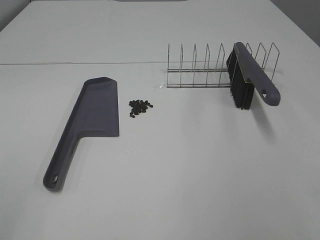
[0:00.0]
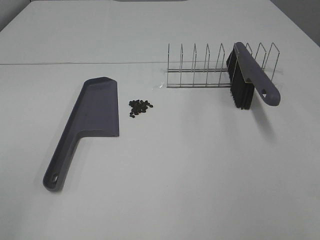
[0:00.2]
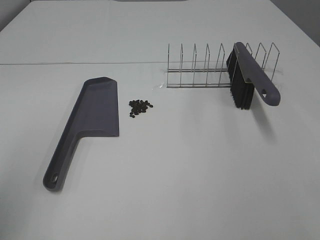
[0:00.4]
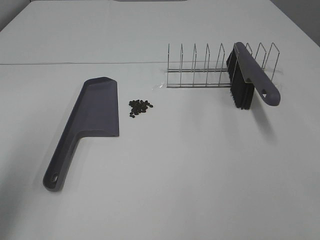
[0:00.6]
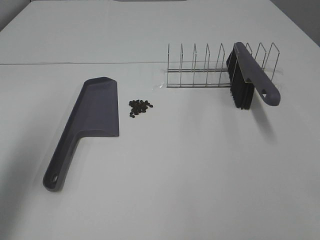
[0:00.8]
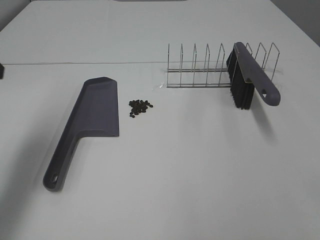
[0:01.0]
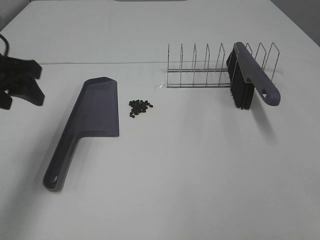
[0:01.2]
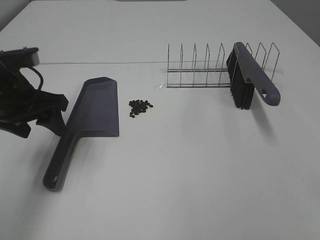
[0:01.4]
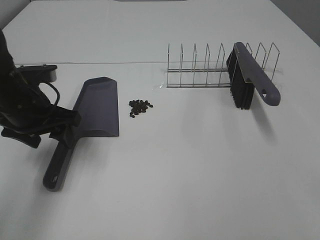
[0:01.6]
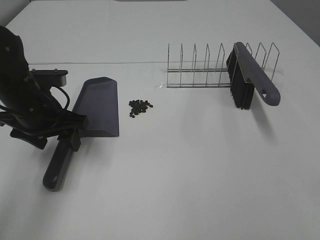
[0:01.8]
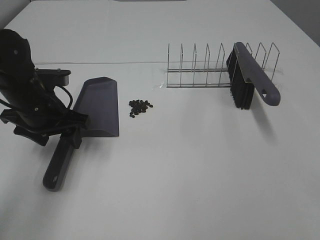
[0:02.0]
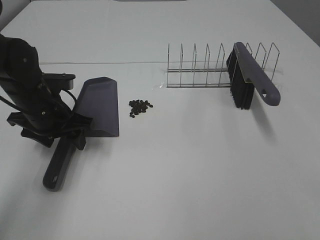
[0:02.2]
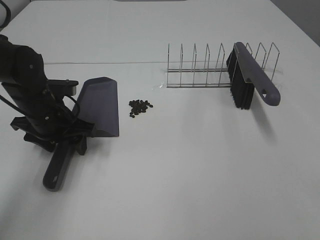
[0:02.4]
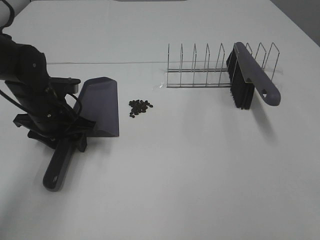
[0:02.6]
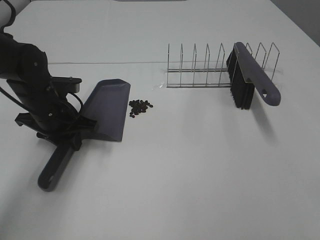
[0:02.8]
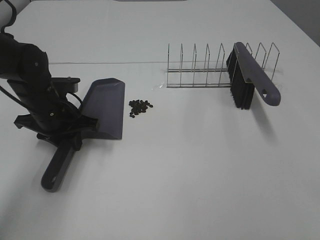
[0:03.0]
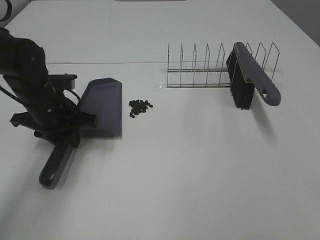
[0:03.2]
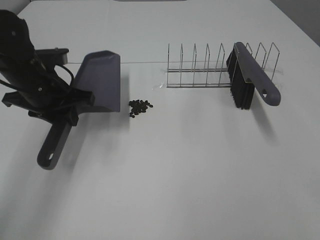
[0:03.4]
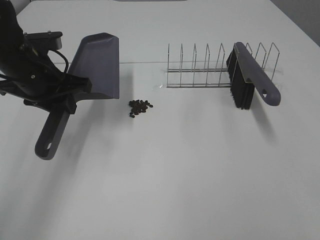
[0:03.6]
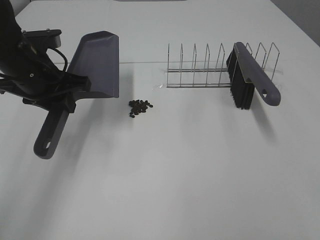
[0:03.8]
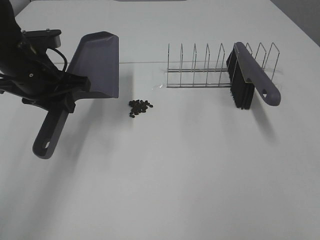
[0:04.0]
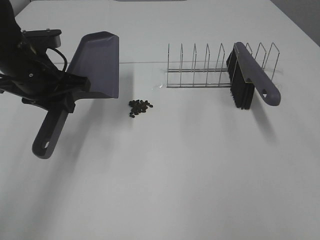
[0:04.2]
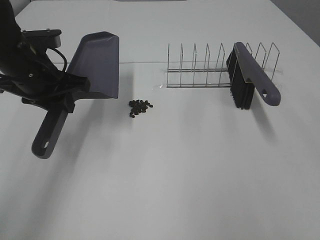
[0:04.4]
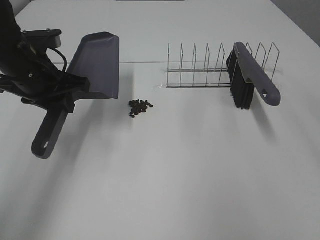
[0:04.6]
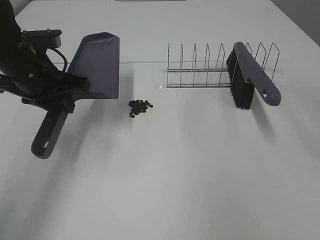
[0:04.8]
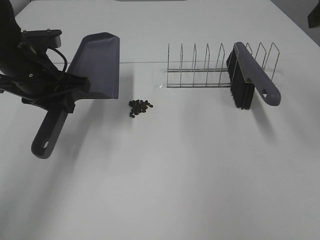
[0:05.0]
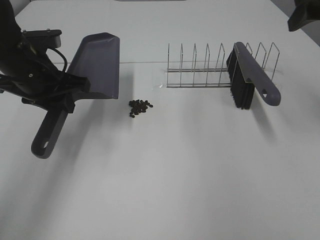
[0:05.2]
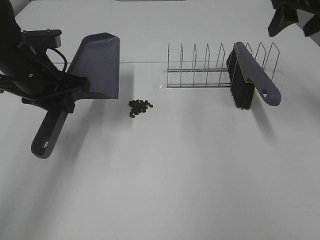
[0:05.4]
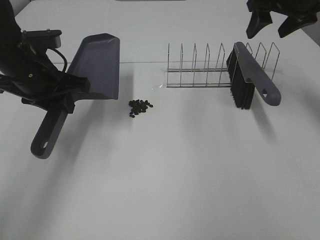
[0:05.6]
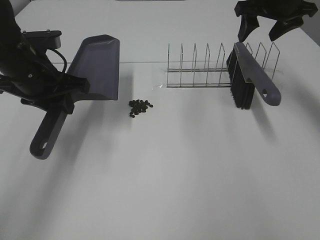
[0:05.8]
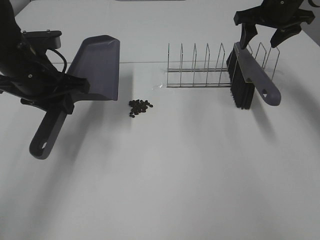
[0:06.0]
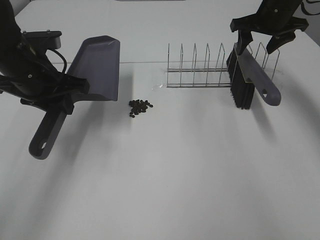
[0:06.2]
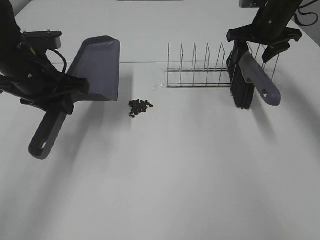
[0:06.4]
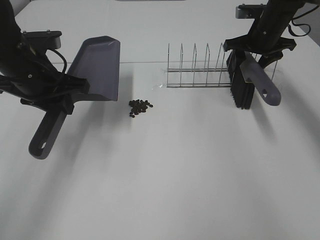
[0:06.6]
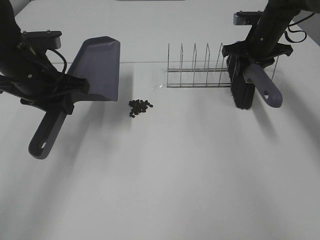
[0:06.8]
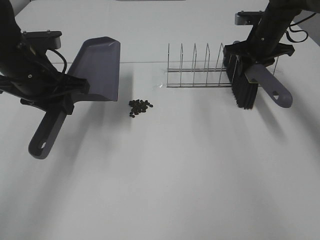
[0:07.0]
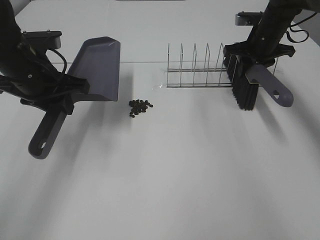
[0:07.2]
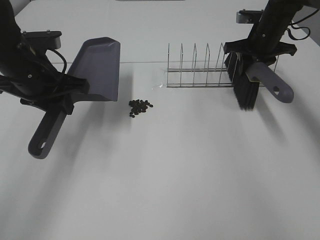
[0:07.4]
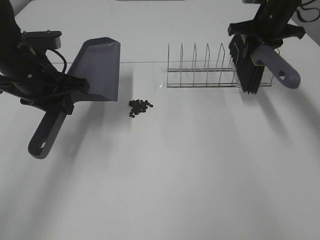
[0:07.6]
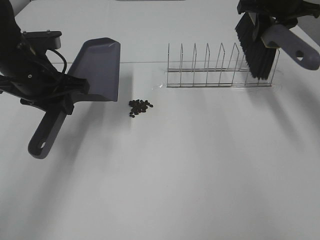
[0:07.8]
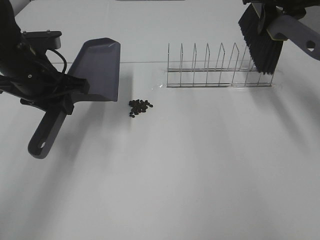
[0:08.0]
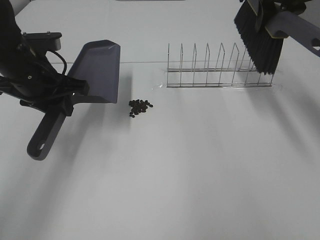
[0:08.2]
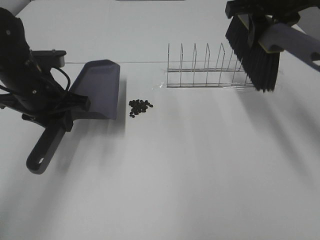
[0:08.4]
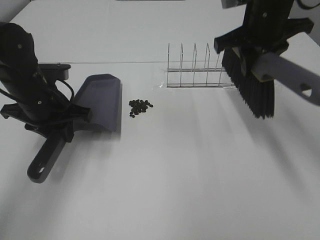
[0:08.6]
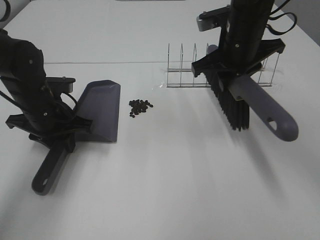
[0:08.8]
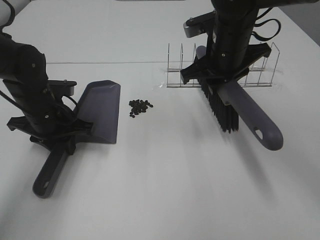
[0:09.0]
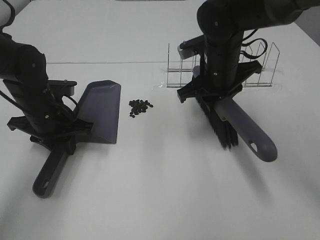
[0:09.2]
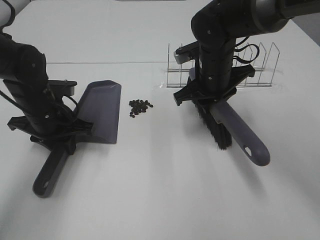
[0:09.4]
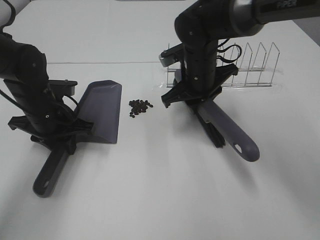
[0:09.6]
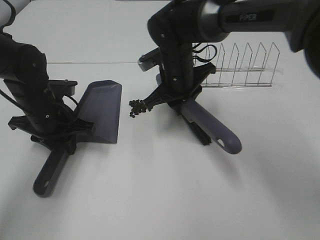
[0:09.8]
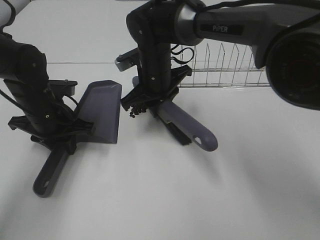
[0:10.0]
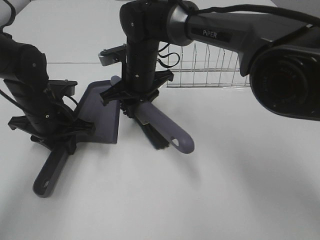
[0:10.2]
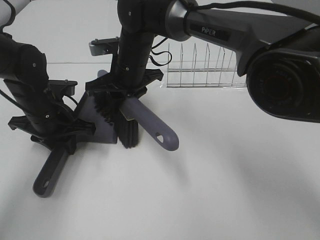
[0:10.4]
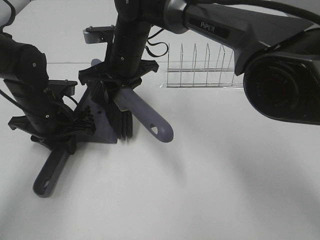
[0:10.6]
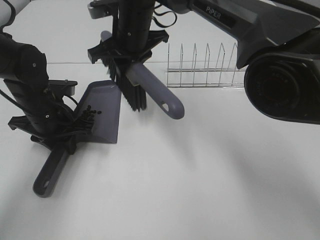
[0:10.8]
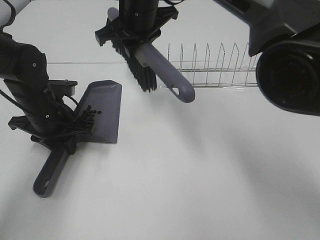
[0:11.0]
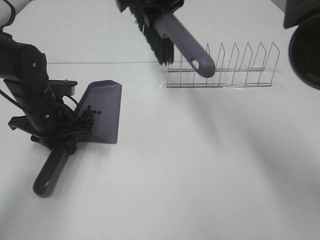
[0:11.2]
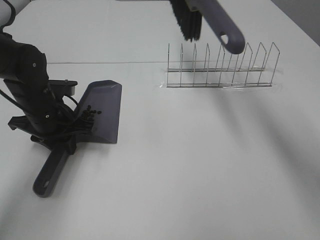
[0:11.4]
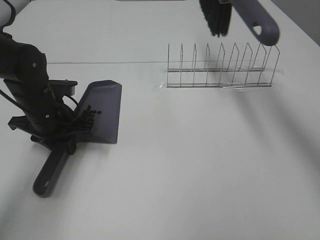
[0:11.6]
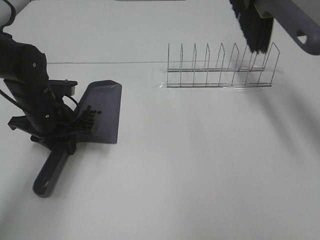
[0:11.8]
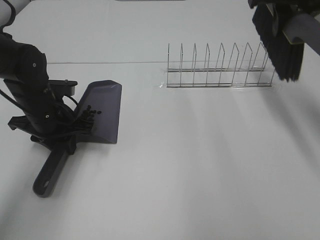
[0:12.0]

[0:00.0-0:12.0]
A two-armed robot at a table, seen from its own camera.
Task of the whole recording: Sweep Coffee Bean.
Step, 0:00.0 to 0:02.8: Left hand: grab the dustpan.
Step, 0:03.8 to 0:06.8: Right hand:grab the broom.
Step, 0:07.0 to 0:10.8: Right hand:sweep the coffee beans into the dustpan.
0:00.0 to 0:01.6: The left gripper heads forward and downward, covering roughly 35 cm, and opens its fingers.
0:01.6 to 0:03.0: The left gripper goes approximately 5 cm downward, and closes its fingers.
0:03.0 to 0:04.4: The left gripper is displaced upward by some 10 cm; the right gripper travels forward and upward by roughly 10 cm.
0:04.4 to 0:06.0: The right gripper is displaced forward by some 40 cm.
0:06.0 to 0:07.6: The right gripper travels downward and back again, roughly 10 cm each way, and closes up.
0:07.6 to 0:09.0: The right gripper is displaced backward and to the left by about 20 cm. Meanwhile the left gripper goes roughly 10 cm downward.
0:09.0 to 0:10.4: The right gripper heads to the left, covering some 15 cm.
0:10.4 to 0:12.0: The right gripper goes roughly 30 cm to the right and upward.

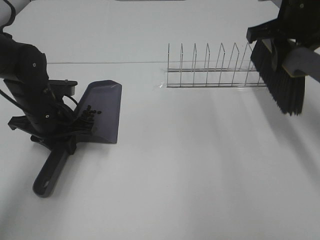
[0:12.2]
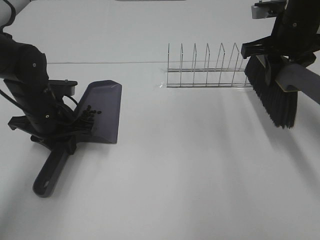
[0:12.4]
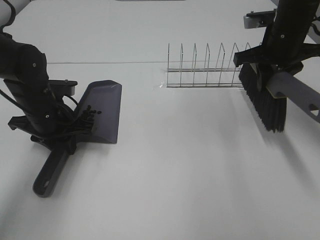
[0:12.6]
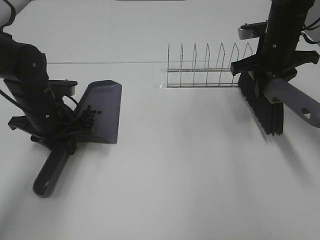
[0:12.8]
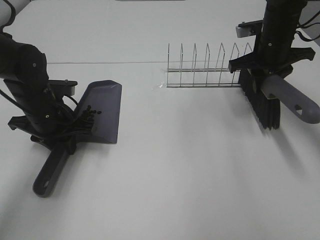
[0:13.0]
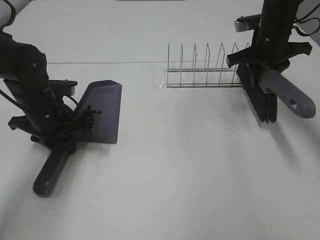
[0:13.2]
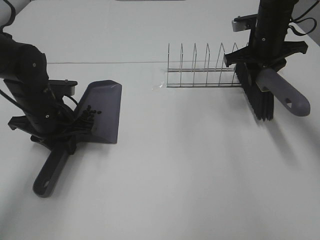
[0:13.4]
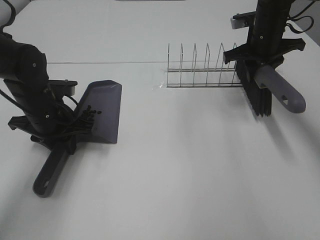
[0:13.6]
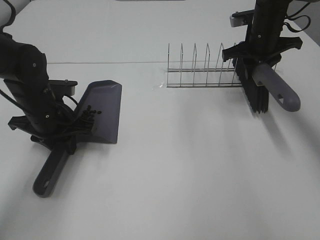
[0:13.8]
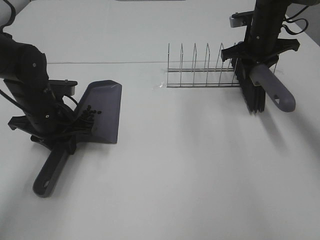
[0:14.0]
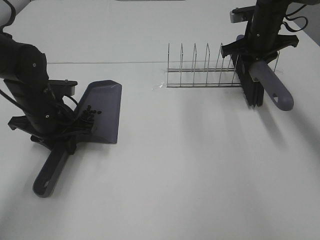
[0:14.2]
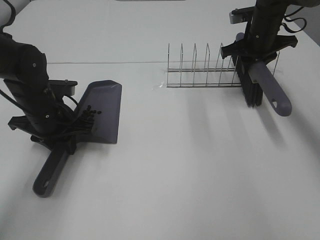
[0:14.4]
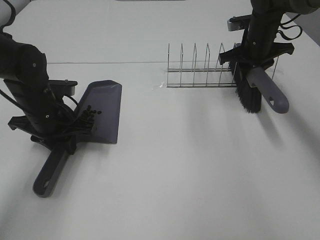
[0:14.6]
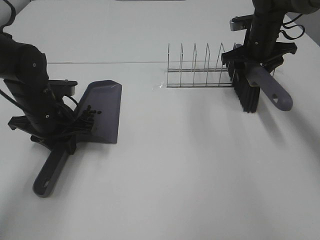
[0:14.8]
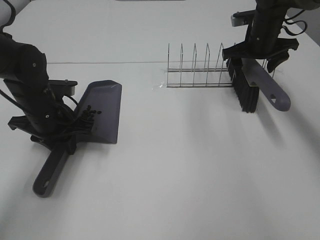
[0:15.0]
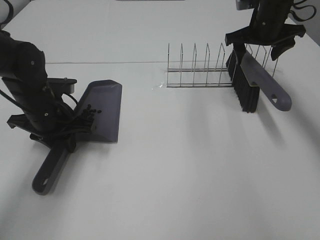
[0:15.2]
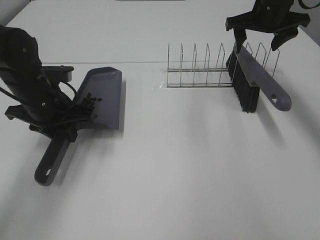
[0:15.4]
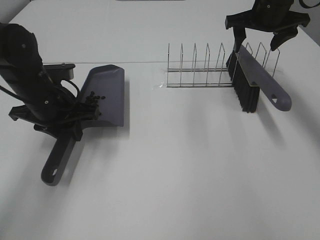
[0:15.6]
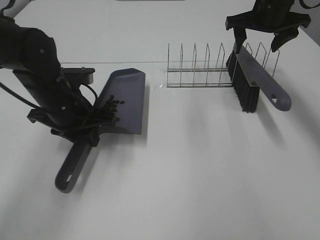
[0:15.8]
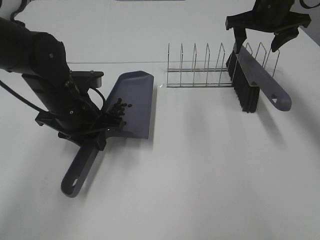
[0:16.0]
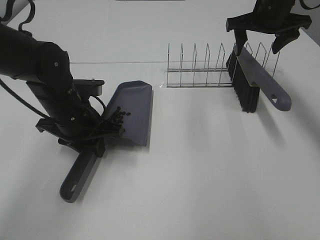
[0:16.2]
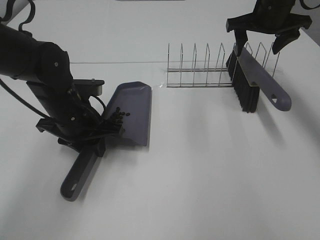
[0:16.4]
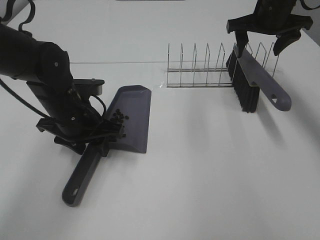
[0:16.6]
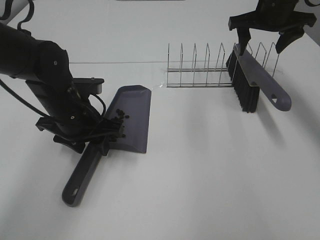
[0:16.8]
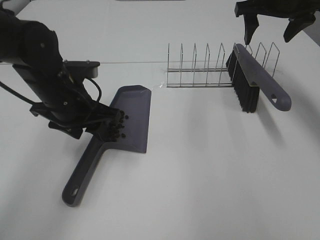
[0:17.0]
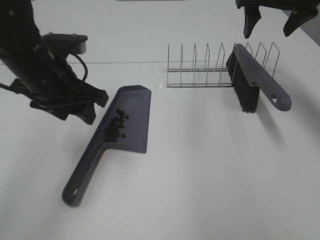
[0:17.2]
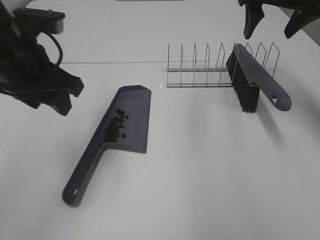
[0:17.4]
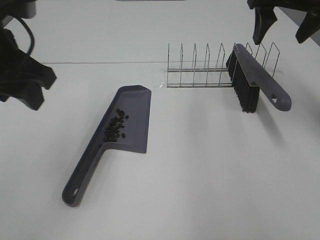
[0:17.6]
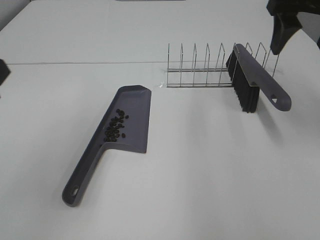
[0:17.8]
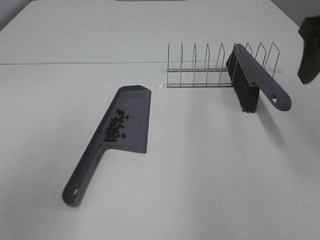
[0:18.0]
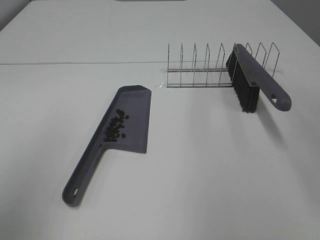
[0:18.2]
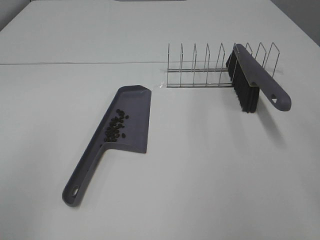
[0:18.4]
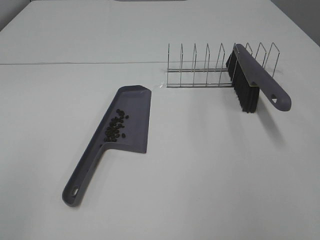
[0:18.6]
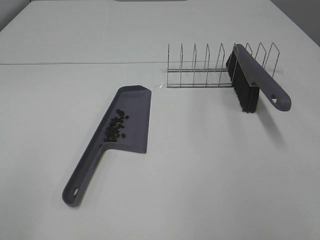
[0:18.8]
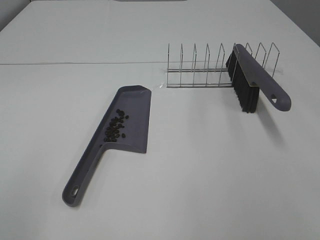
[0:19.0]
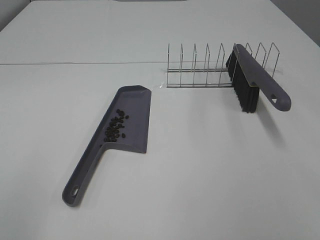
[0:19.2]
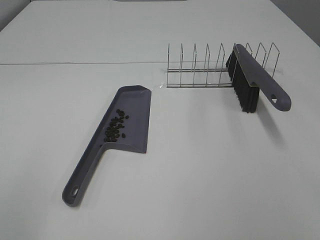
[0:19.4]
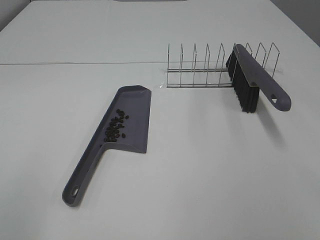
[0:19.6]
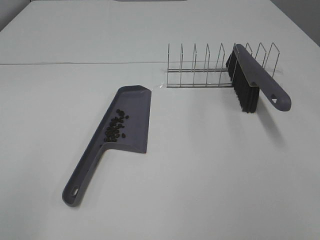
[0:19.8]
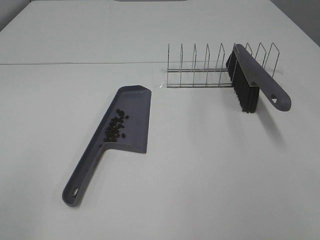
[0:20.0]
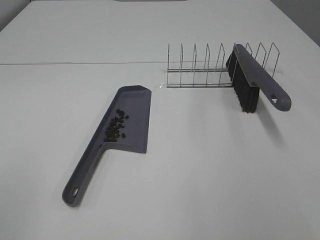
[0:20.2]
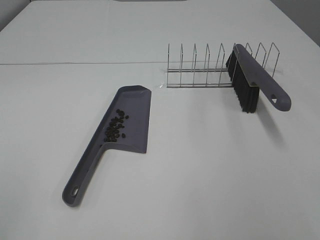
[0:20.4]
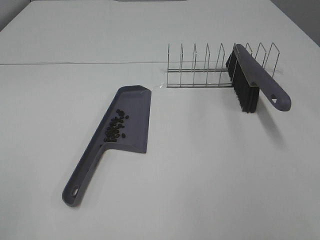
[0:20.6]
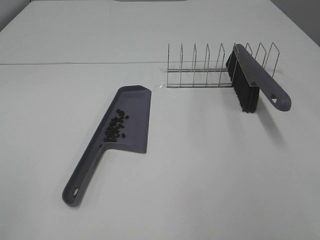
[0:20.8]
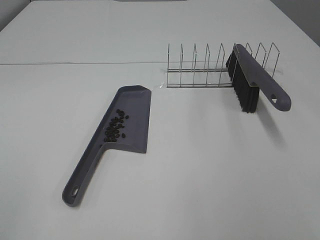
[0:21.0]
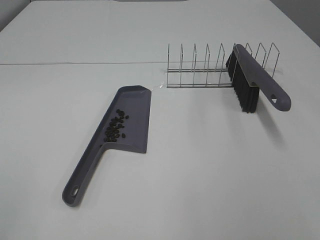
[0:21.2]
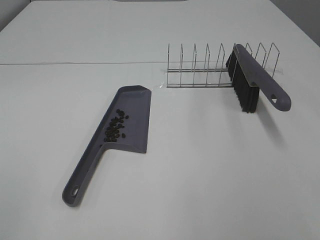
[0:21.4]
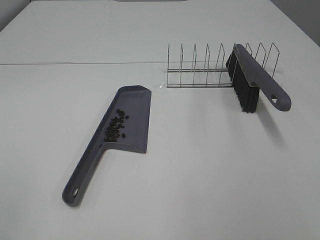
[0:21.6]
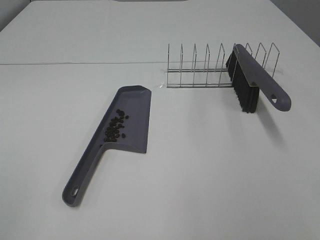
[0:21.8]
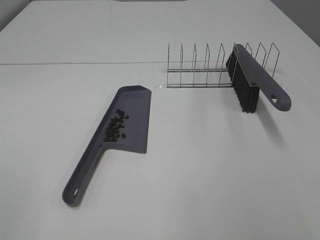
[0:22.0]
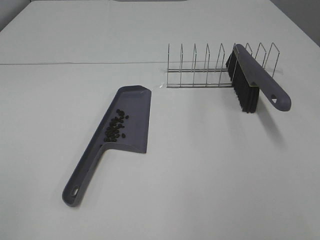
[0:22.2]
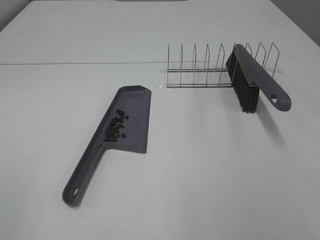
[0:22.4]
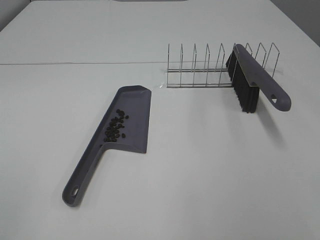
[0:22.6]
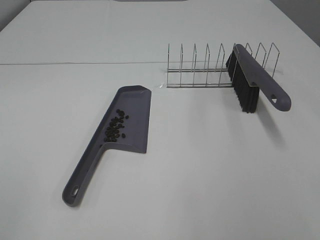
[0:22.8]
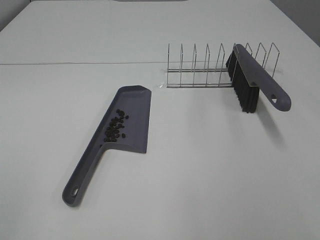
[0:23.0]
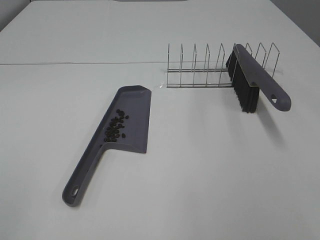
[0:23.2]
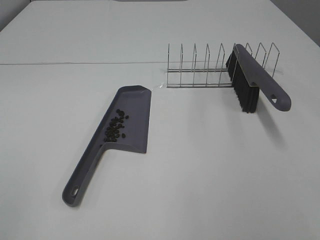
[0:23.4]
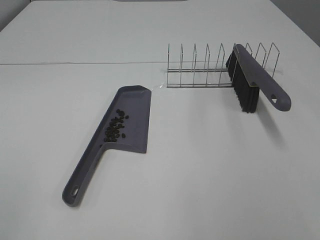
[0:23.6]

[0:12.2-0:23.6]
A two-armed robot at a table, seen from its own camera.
Task of the whole recording: Sweep Coffee Bean.
Step, 0:12.2 to 0:15.0: Right hand:place the broom on the rack.
Step, 0:15.2 to 0:17.2: Left hand:place the dustpan on the table.
0:12.2 to 0:13.6: The right gripper travels forward and downward by about 10 cm.
0:13.6 to 0:15.0: The right gripper opens.
0:15.0 to 0:16.4: The left gripper moves to the right, about 5 cm. The right gripper is displaced upward by some 5 cm.
0:16.4 to 0:17.8: The left gripper is displaced upward and backward by roughly 25 cm, and opens, while the right gripper moves backward and upward, approximately 15 cm.
0:17.8 to 0:19.4: The left gripper travels backward by roughly 20 cm. The right gripper heads backward, covering approximately 35 cm.
0:22.2 to 0:23.6: Neither gripper changes place.
